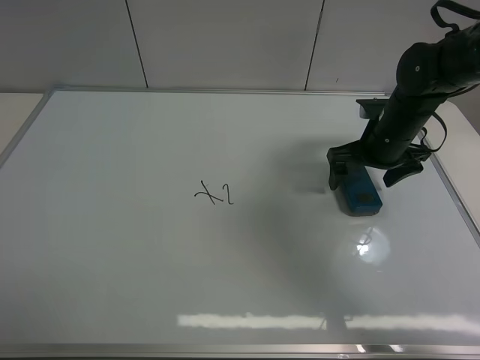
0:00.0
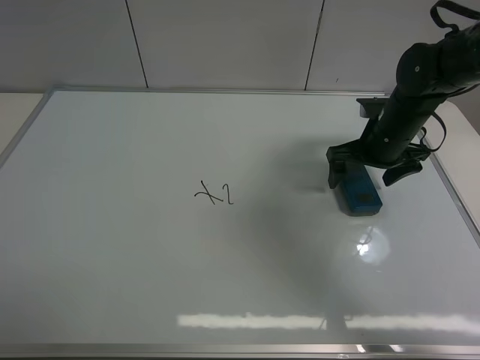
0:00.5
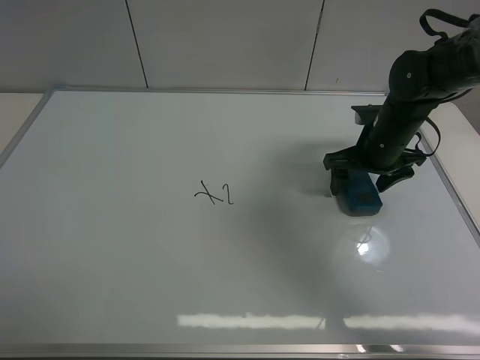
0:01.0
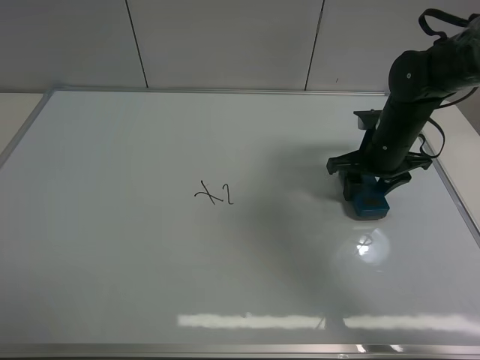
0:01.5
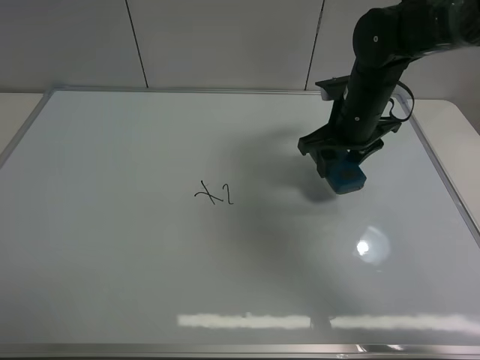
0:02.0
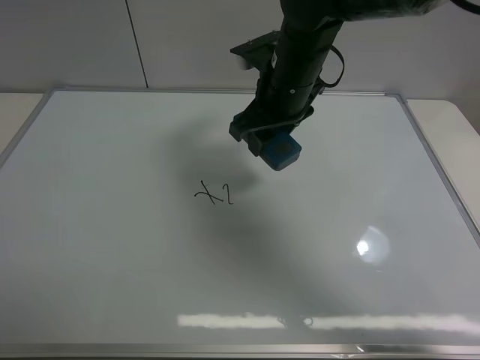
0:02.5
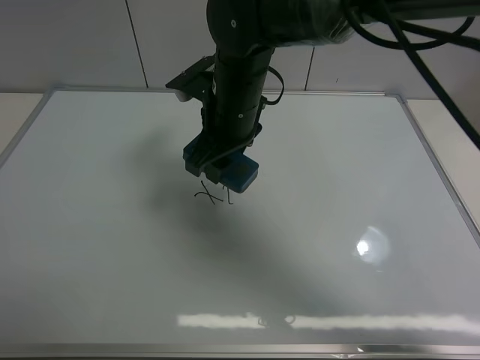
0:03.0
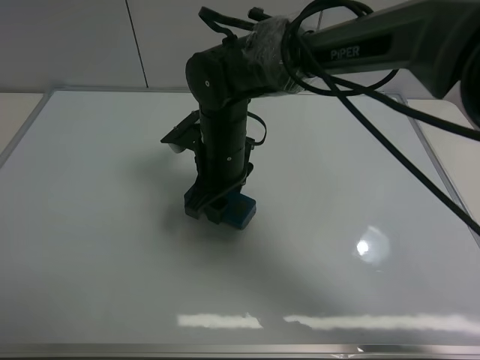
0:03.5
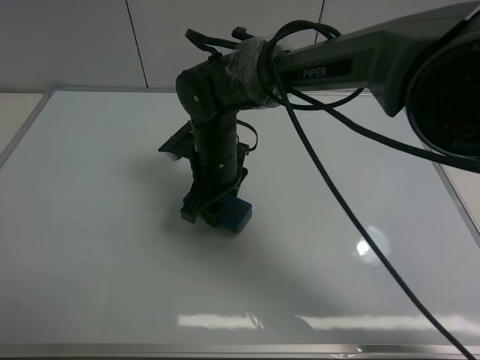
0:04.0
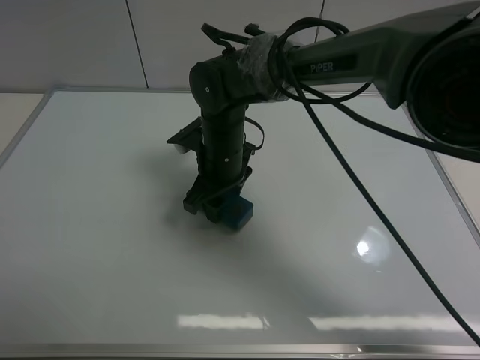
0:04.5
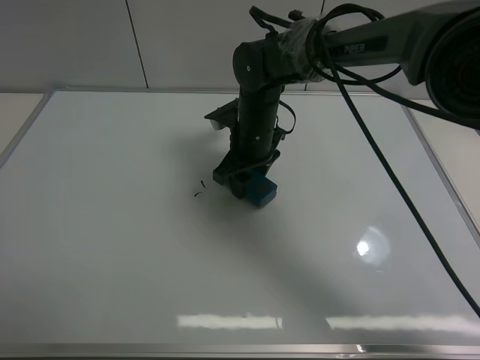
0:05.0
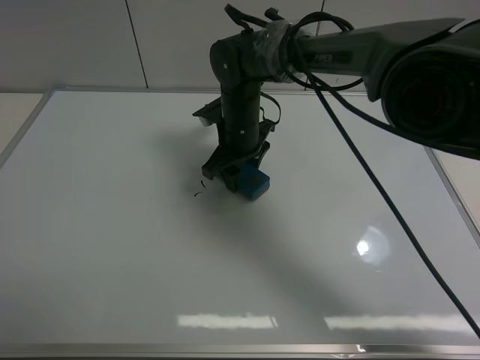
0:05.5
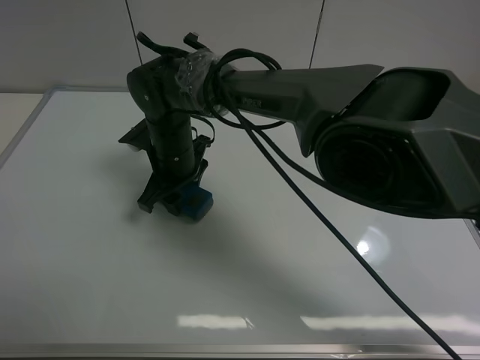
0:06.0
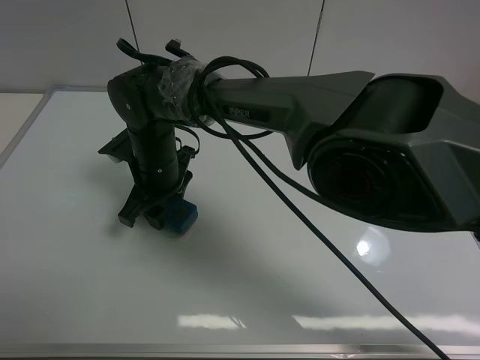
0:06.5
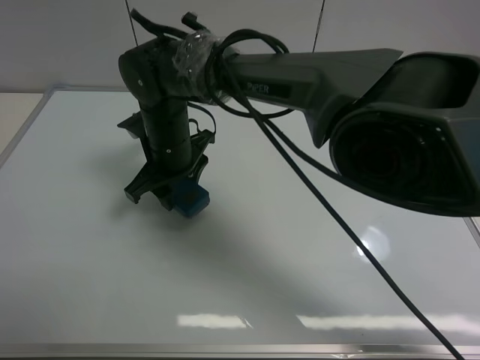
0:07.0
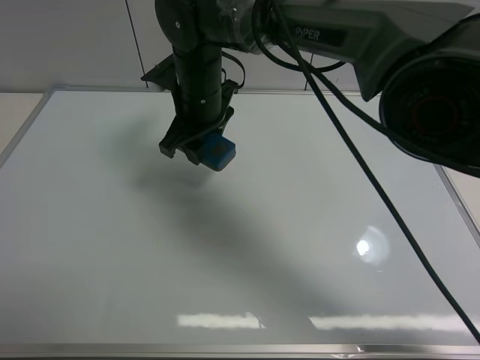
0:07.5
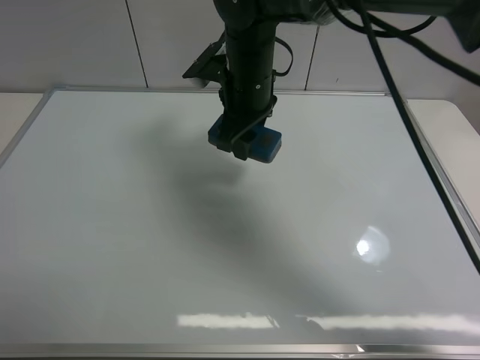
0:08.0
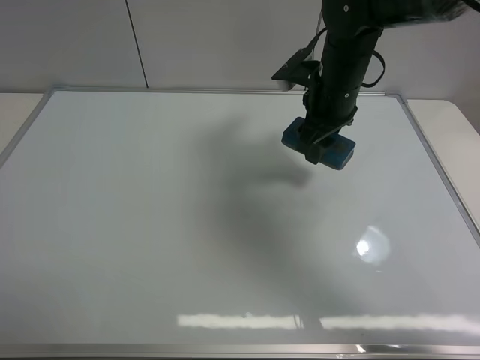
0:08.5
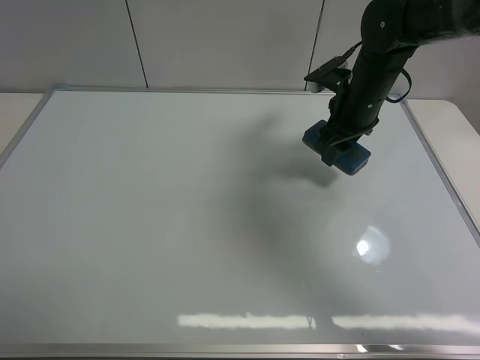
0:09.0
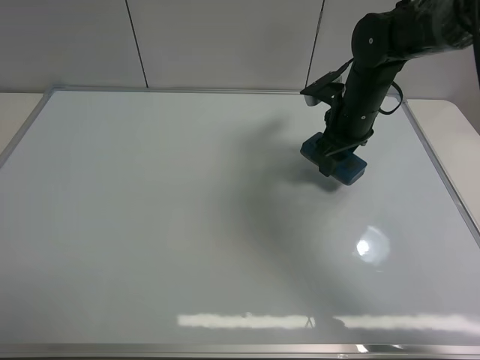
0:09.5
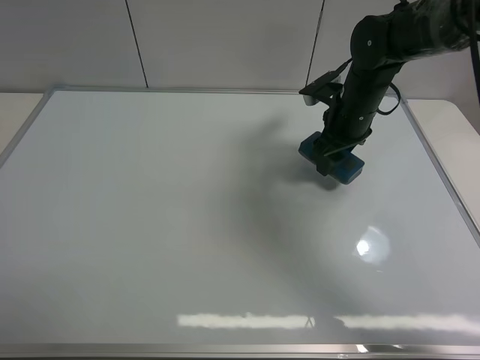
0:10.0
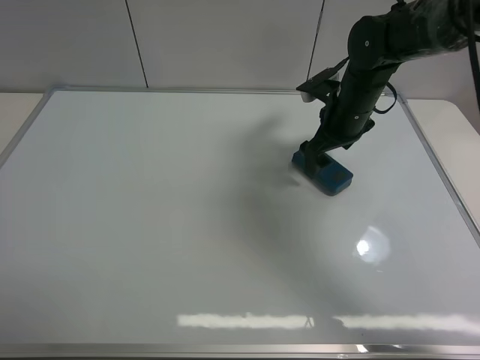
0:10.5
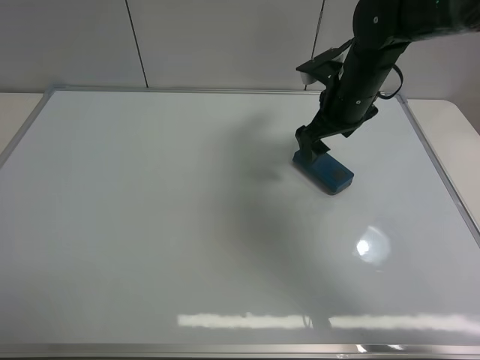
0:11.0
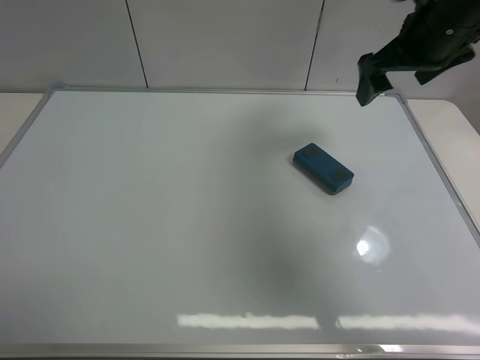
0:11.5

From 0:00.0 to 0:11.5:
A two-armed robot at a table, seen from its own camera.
Task of the whole recording: use the right gripper to pick up the board eraser, wipe the notes on the whiteboard clean, and then put them back in place.
Step, from 0:02.0 to 0:06.5: Wipe off the writing on the board with right gripper.
Step, from 0:07.0 to 0:10.0: Place the board eraser on the right side of board with right gripper.
From 0:00.0 to 0:02.0: The right gripper is displaced to the left by approximately 5 cm, and closes its fingers.
From 0:02.0 to 0:04.0: The right gripper travels to the left by some 20 cm.
From 0:04.0 to 0:06.0: The right gripper heads to the left, covering approximately 5 cm.
From 0:06.0 to 0:07.5: The right gripper is displaced upward by about 10 cm.
From 0:07.5 to 0:09.5: The right gripper goes approximately 20 cm to the right.
From 0:09.5 to 0:11.5: The right gripper moves upward and to the right, roughly 15 cm, and opens up.

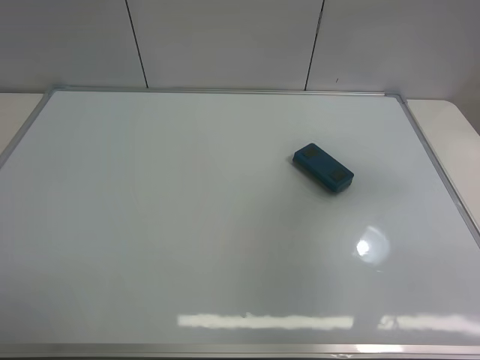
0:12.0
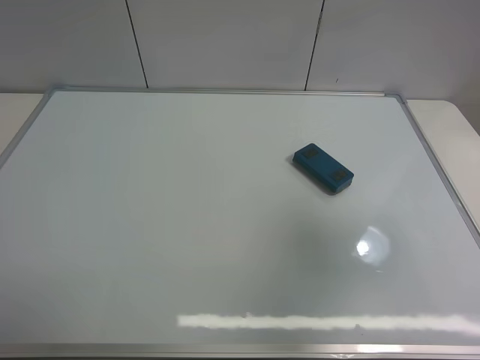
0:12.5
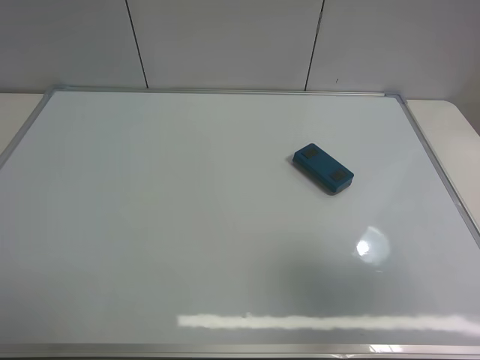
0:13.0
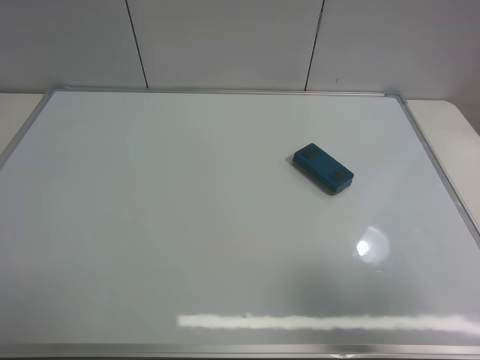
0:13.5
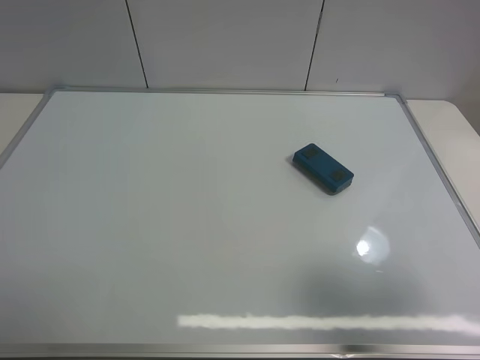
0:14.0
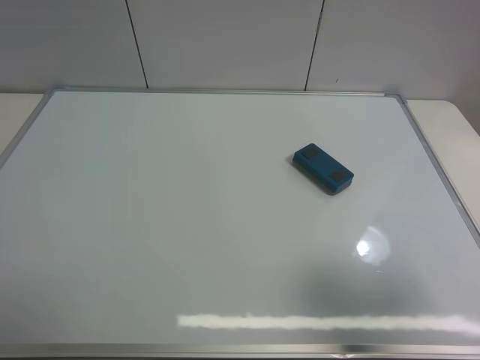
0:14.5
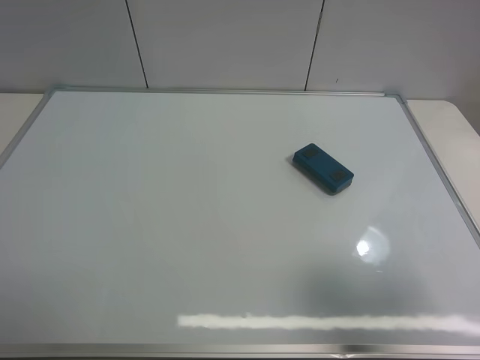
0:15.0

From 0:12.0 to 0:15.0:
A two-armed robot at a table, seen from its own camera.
Task of the whole recording: use the right gripper to pick up the board eraser, wipe the notes on the whiteboard clean, and then put them back in place.
From 0:12.0 to 0:13.5: The right gripper travels backward by roughly 20 cm.
